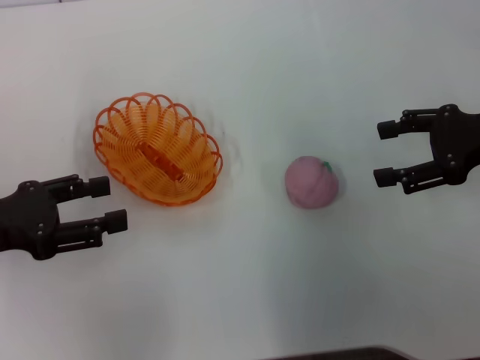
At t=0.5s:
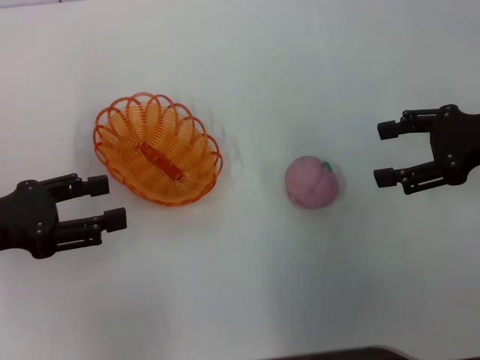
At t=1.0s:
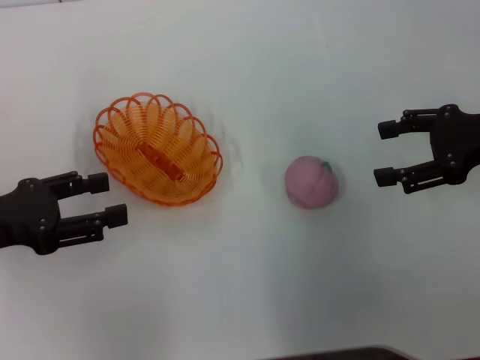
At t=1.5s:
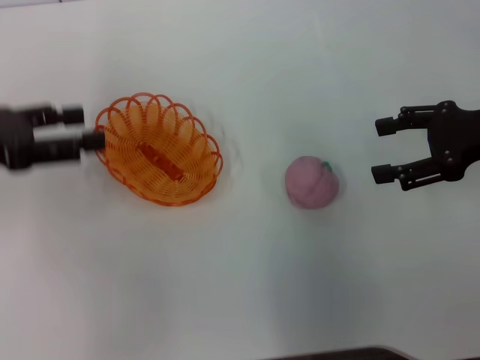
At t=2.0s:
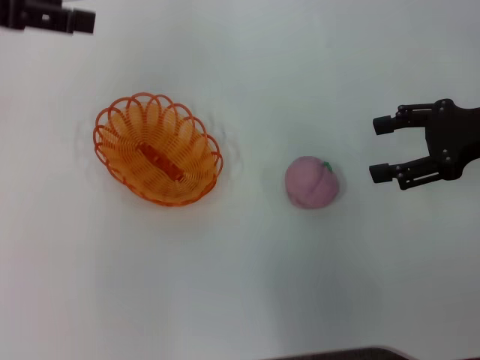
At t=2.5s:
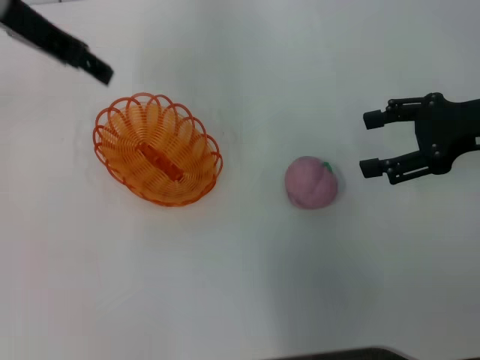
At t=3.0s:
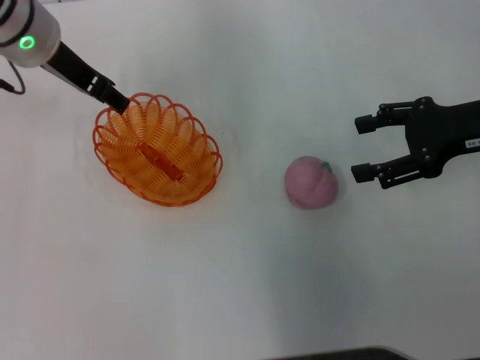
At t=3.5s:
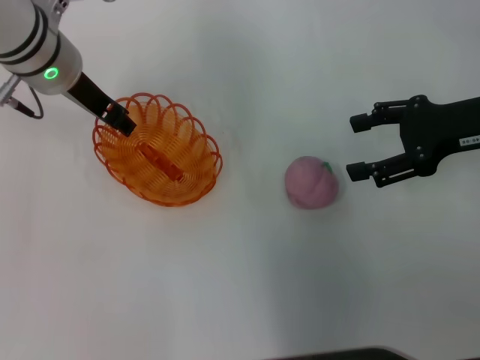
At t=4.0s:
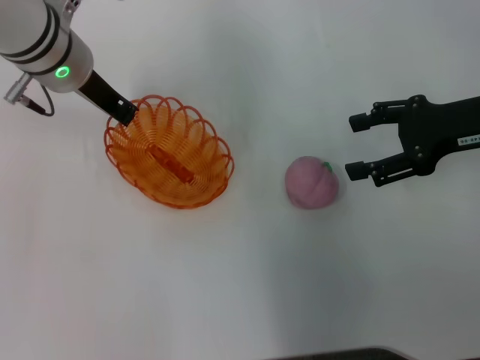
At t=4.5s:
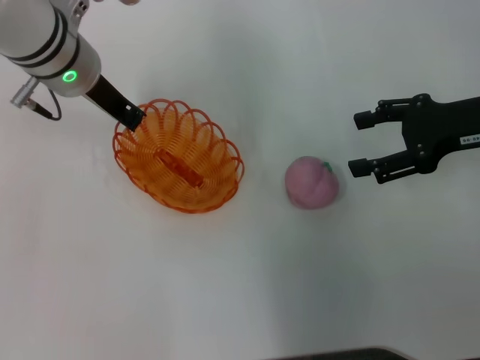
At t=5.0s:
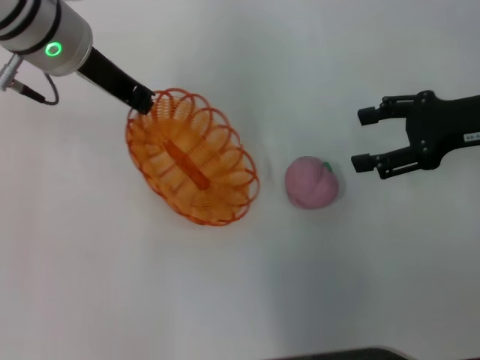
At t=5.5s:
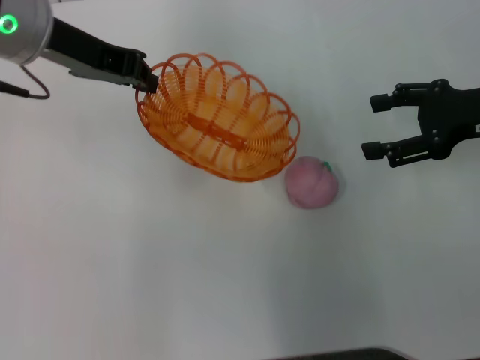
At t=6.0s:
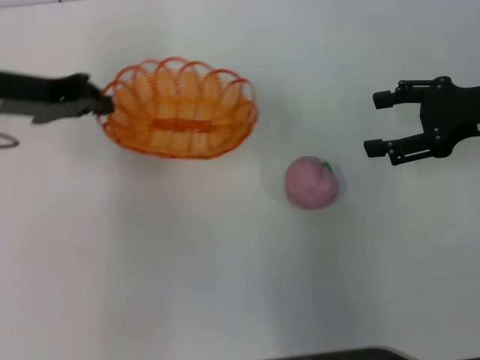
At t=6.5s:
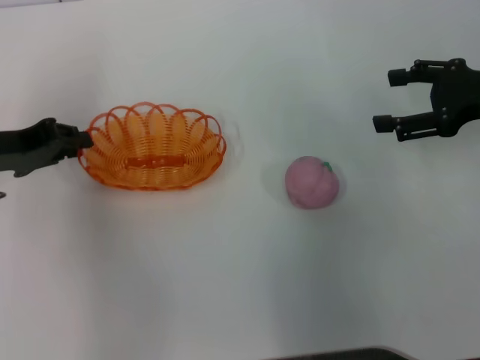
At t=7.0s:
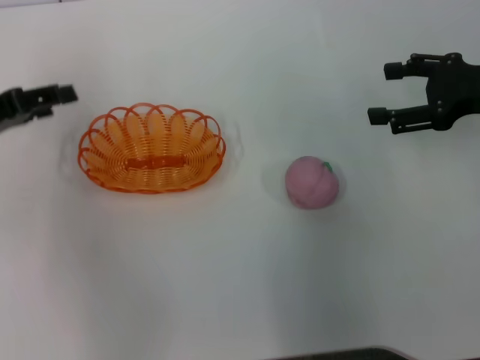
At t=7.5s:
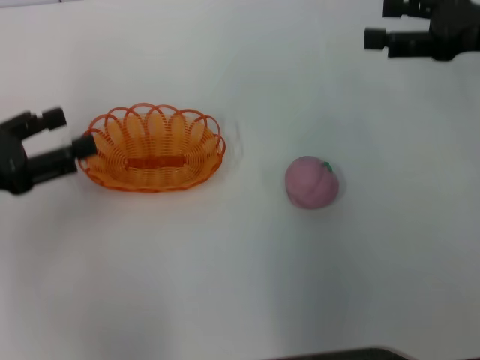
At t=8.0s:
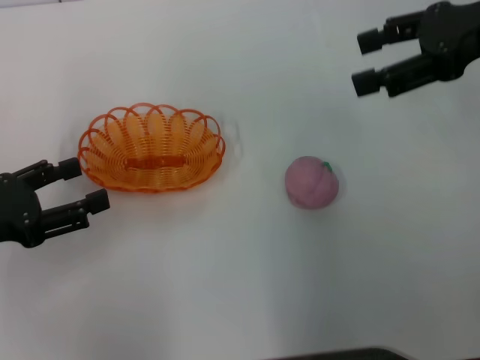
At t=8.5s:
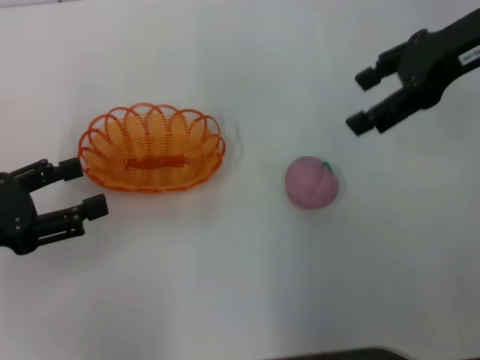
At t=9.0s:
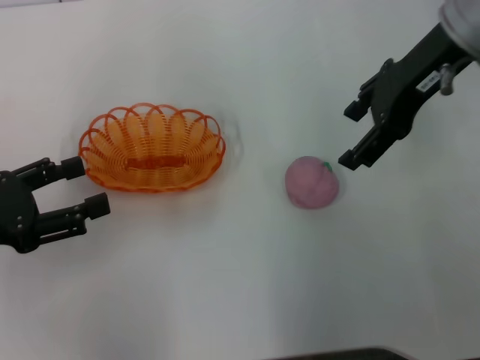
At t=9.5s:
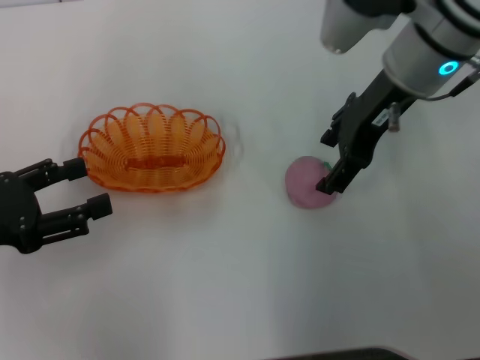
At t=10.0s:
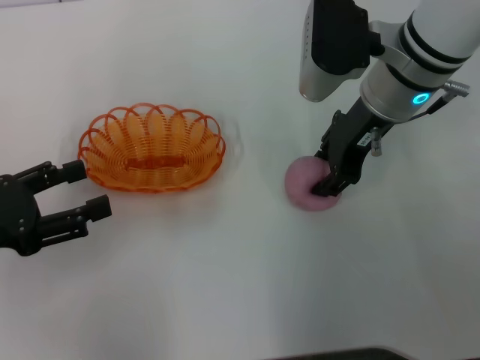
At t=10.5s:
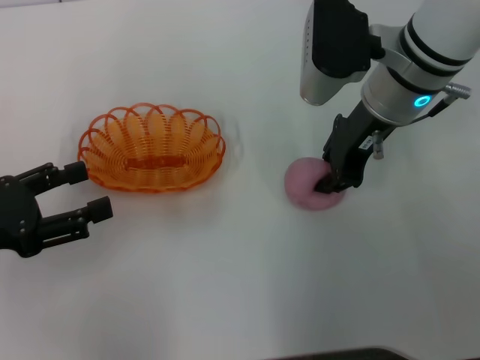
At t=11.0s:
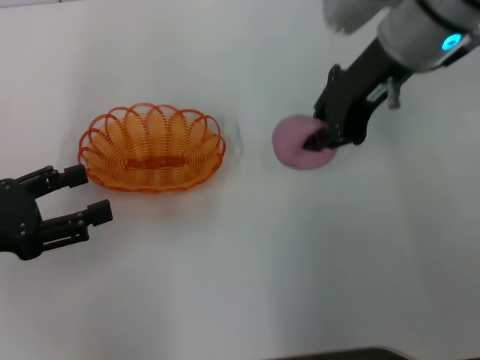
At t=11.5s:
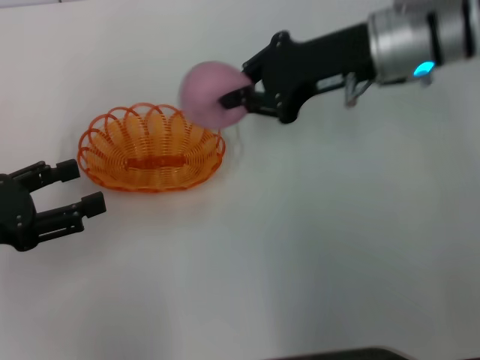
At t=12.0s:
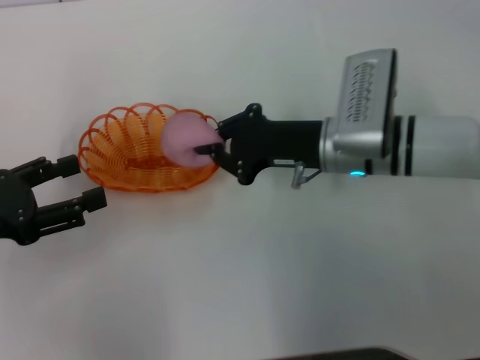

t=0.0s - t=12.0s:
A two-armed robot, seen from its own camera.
Step, t=0.0s - t=5.0s: Pick up the basket with the left gripper.
Step, t=5.5s - t=7.0s: Place the basket in the center of view with the left gripper.
Step, t=7.5s - t=11.0s: Pick up the peach with the right gripper.
t=0.0s - t=2.0s: The left gripper heads upward and forward, covering about 20 cm.
t=2.0s - t=4.0s: The left gripper is displaced to the right and downward by some 15 cm, and closes its fingers.
t=4.0s - t=6.0s: The left gripper heads to the left and backward, covering roughly 10 cm.
t=6.0s - t=8.0s: The right gripper goes some 10 cm upward. The left gripper moves backward, to the left and downward, roughly 15 cm, and opens its fingers.
t=8.0s - t=10.0s: The right gripper heads to the left and downward, covering about 15 cm.
t=10.0s - t=12.0s: The right gripper shifts about 10 cm downward, and closes up.

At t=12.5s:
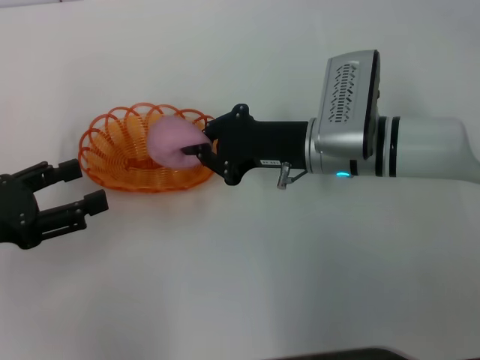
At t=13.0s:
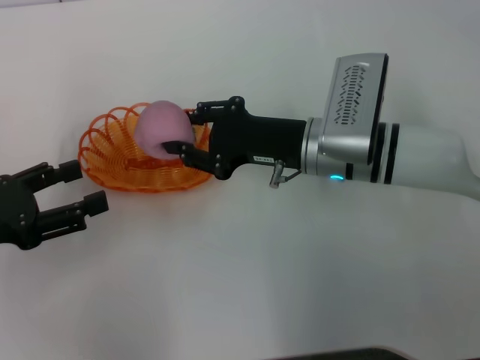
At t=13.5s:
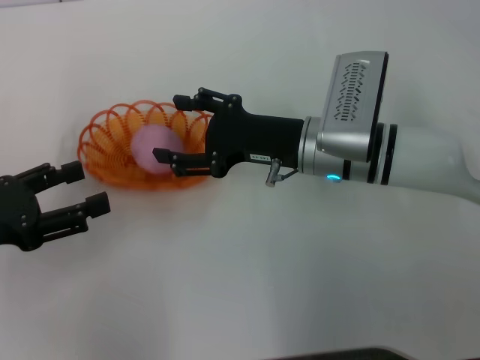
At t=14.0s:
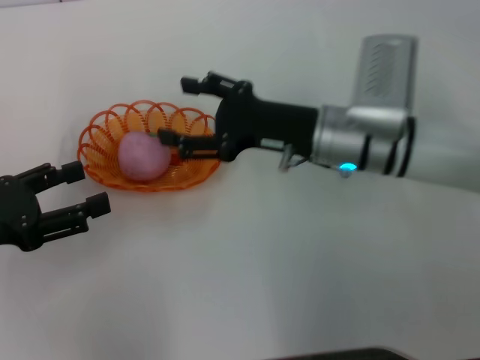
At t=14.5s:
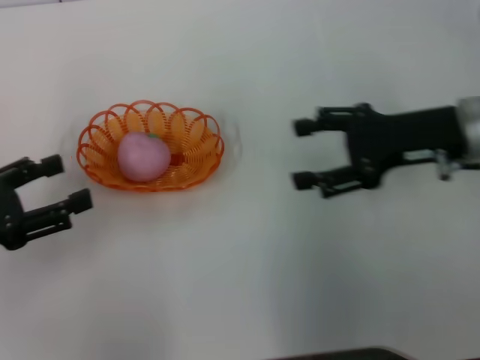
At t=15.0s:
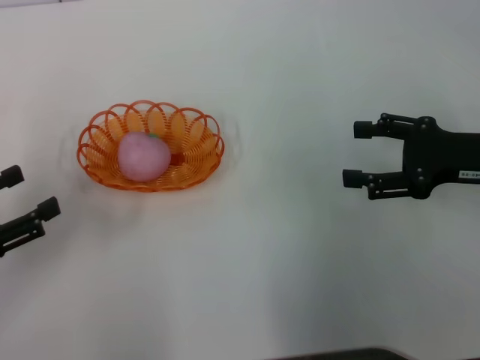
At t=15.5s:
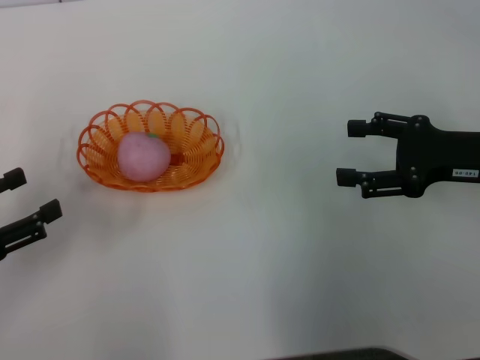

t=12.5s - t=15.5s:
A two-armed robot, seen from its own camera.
Step, t=12.5s - t=14.0s: Place the peach into the basket with the right gripper.
t=12.5s - t=14.0s: The right gripper opens its fingers.
t=14.0s - t=15.5s: The right gripper travels to the right by some 15 cm.

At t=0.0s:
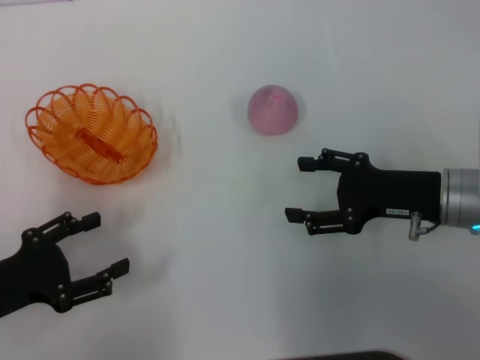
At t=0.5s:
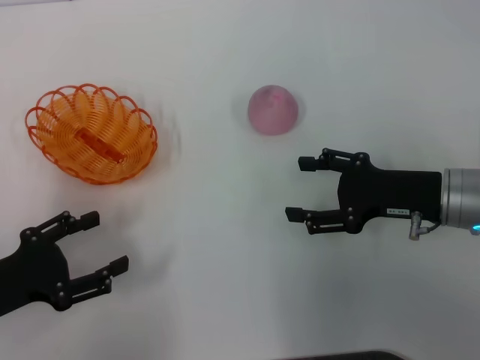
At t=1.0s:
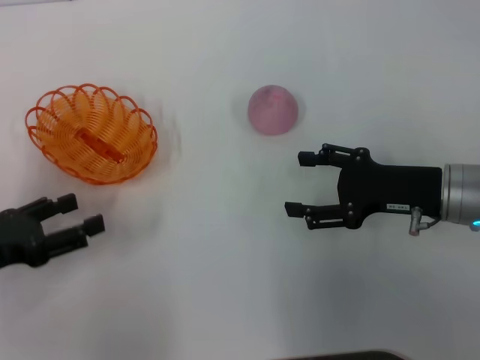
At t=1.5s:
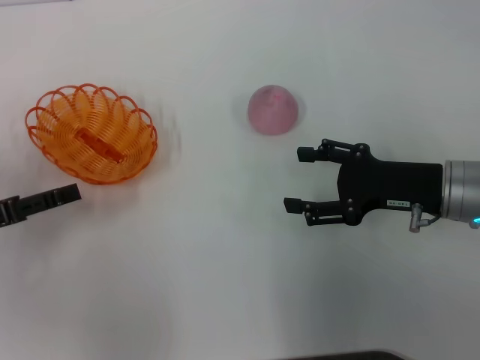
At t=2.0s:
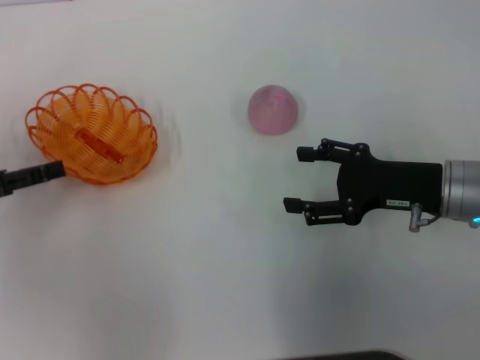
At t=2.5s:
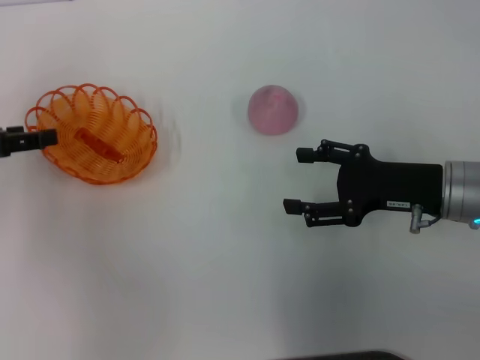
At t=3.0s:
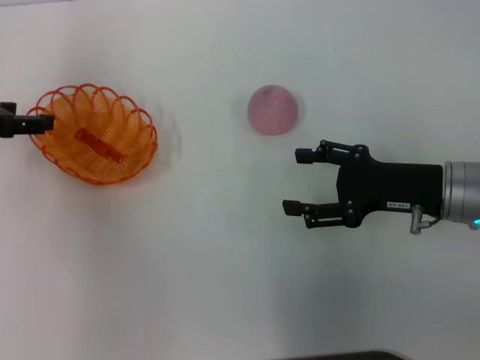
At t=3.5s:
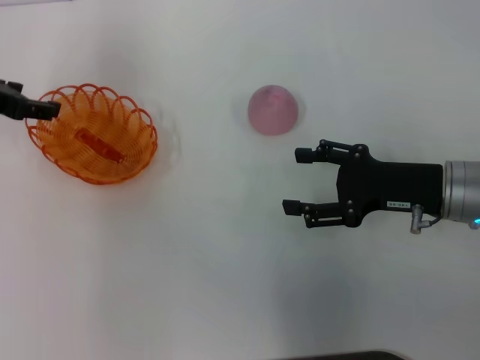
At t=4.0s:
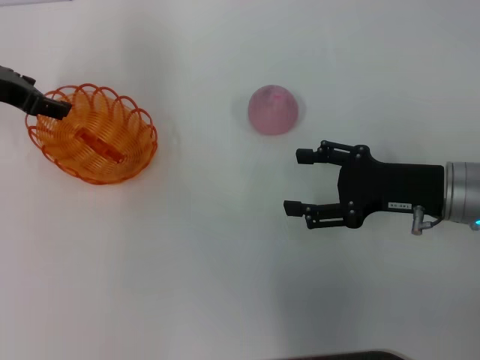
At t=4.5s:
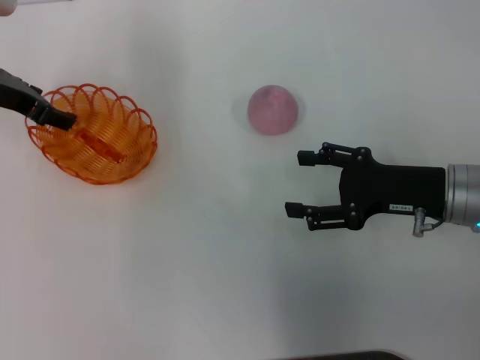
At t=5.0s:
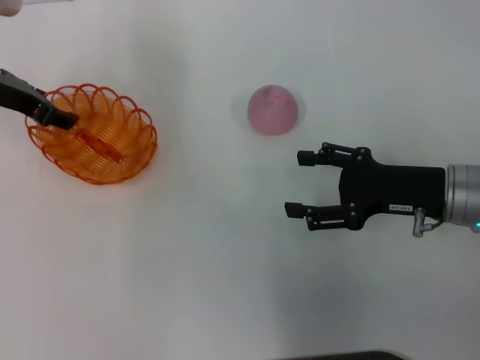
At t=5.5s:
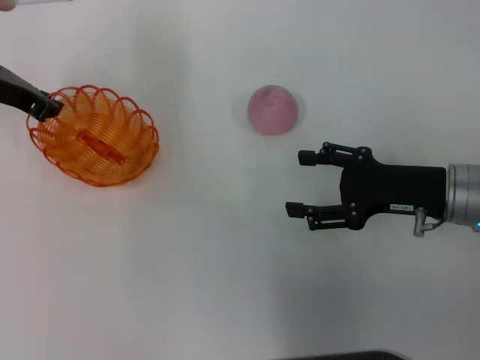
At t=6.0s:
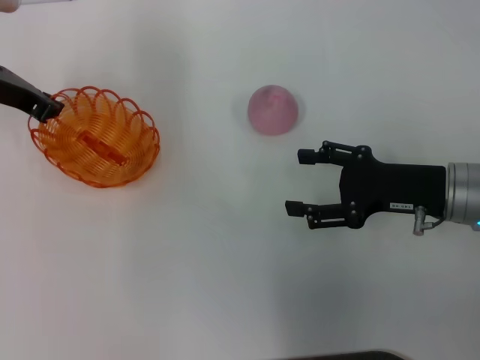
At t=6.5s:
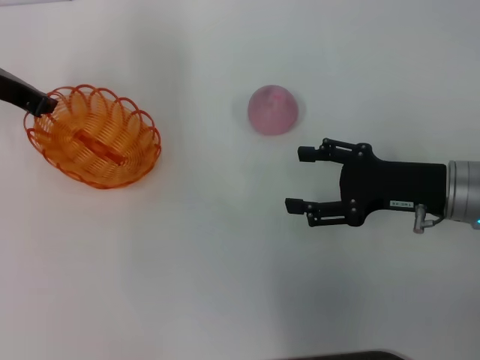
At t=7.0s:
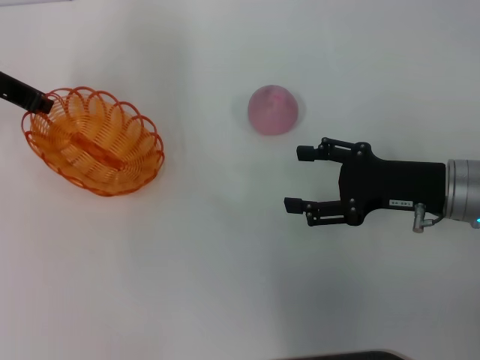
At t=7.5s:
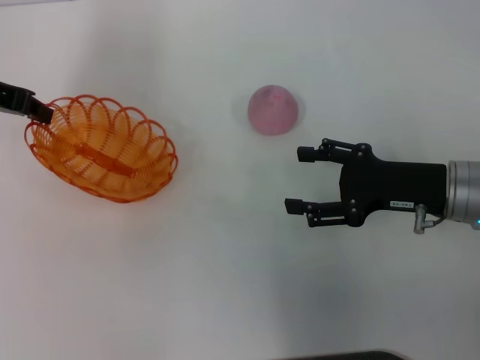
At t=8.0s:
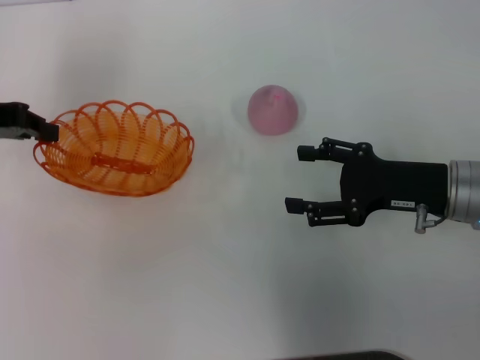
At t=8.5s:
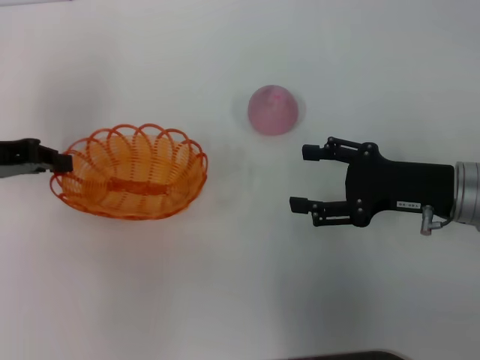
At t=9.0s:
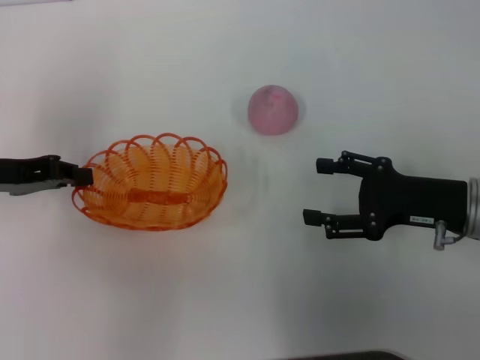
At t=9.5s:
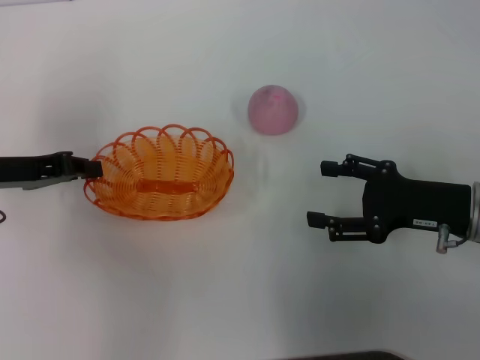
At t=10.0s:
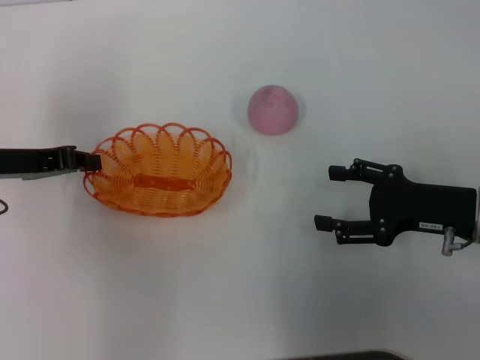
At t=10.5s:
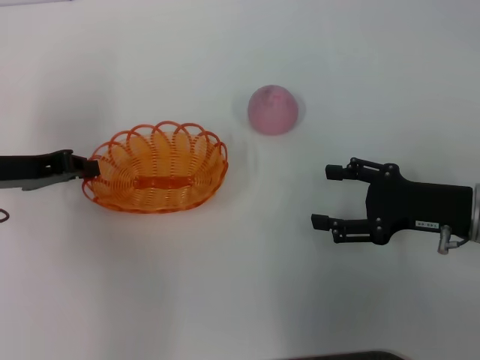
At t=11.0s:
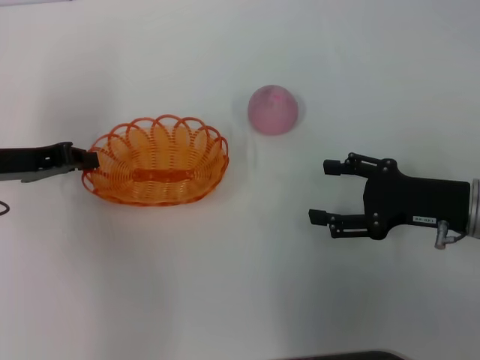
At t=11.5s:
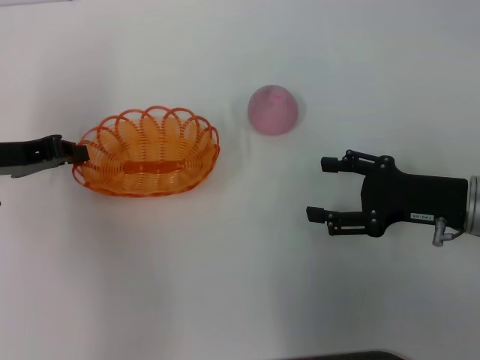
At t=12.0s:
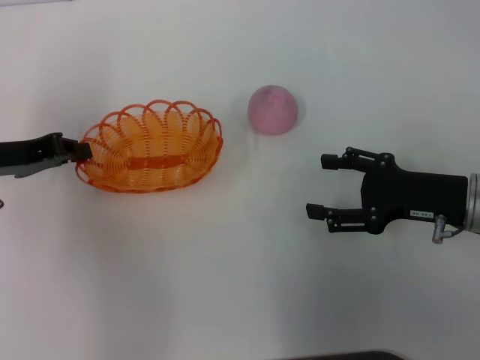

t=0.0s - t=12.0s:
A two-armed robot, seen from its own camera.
Step, t=0.0s - t=6.5s: Pick up the basket with the left gripper.
t=0.0s - t=2.0s: The left gripper is displaced forward and upward by roughly 10 cm.
t=2.0s - t=4.0s: The left gripper is displaced forward and to the right by roughly 15 cm.
t=4.0s - t=6.0s: The left gripper closes its fingers.
t=6.0s - t=8.0s: The left gripper is displaced to the left by some 5 cm.
t=8.0s - t=10.0s: The left gripper travels downward by approximately 5 cm.
t=10.0s - t=12.0s: The grippers stay close to where they were, moving slightly.
